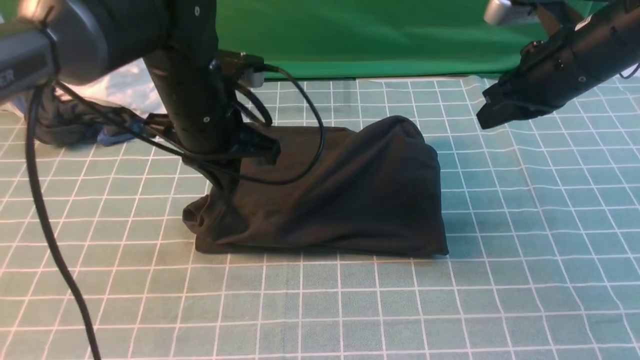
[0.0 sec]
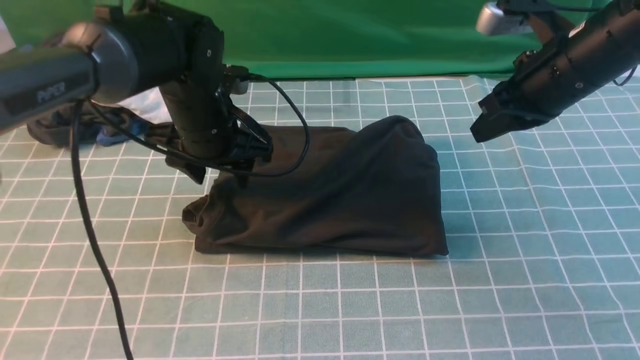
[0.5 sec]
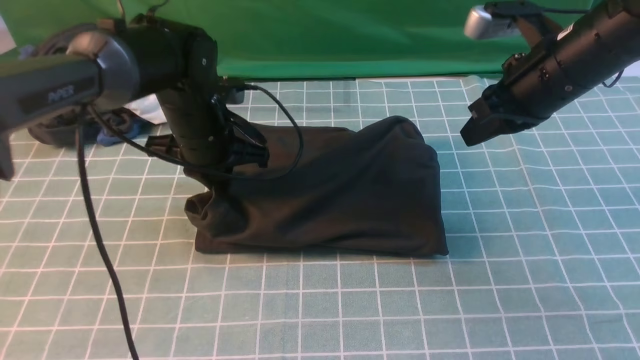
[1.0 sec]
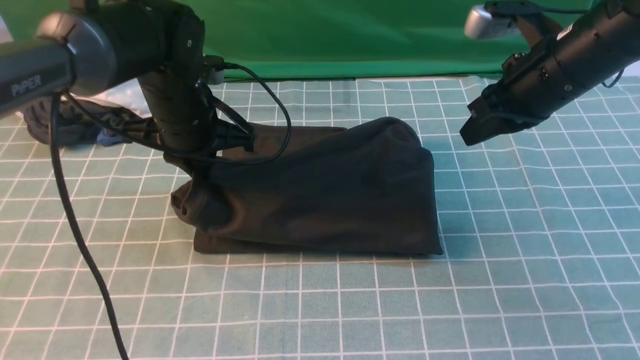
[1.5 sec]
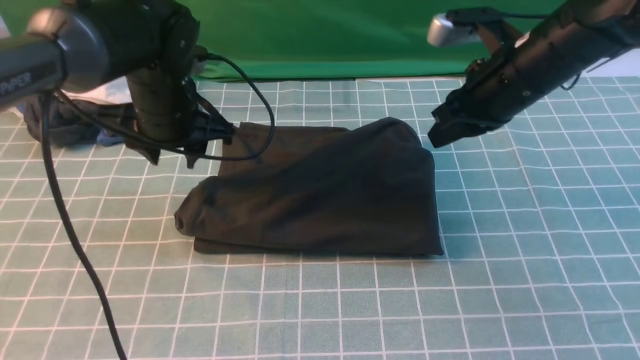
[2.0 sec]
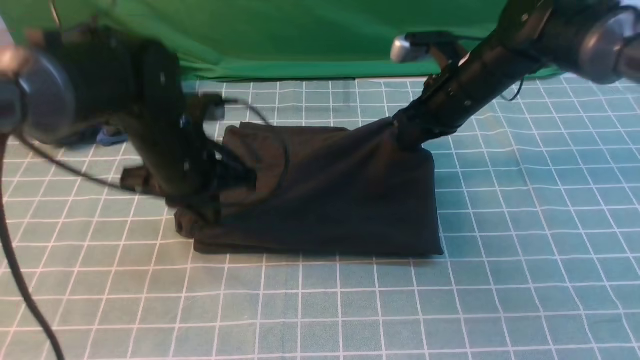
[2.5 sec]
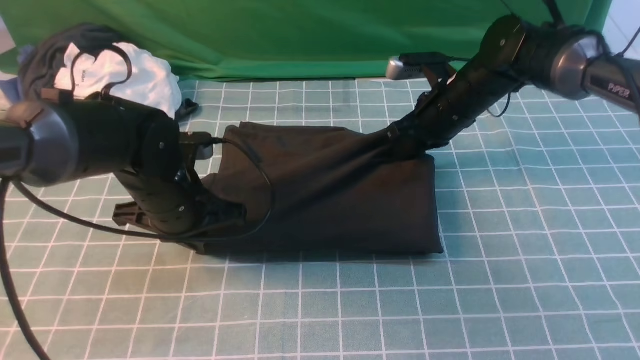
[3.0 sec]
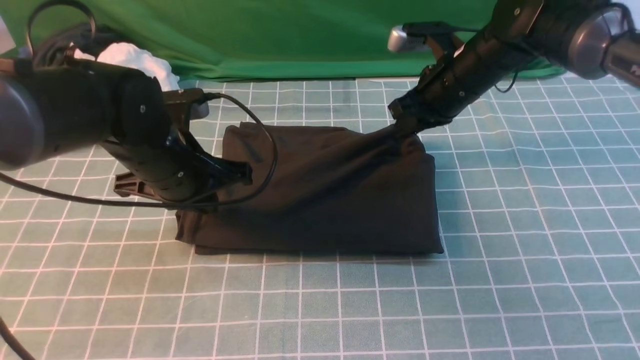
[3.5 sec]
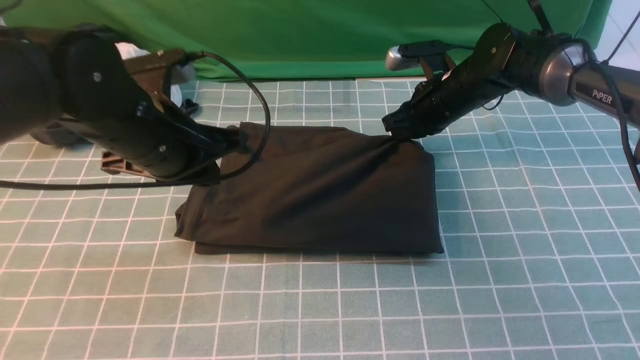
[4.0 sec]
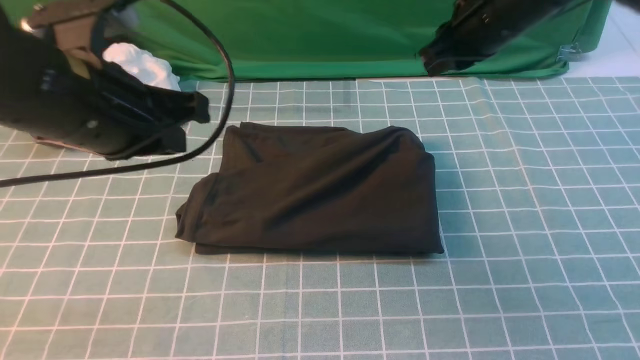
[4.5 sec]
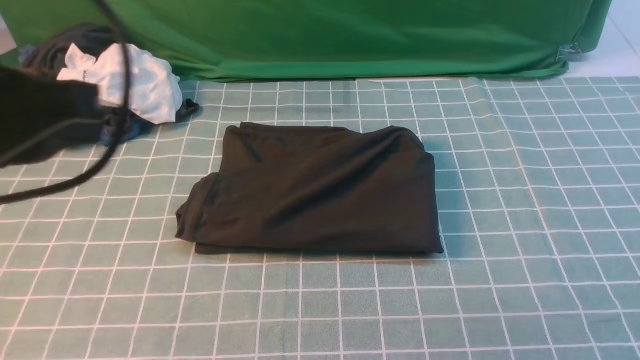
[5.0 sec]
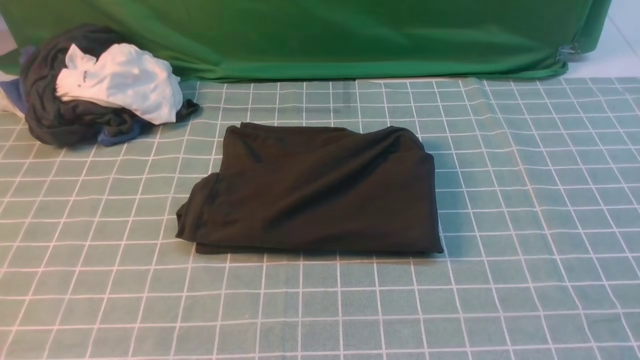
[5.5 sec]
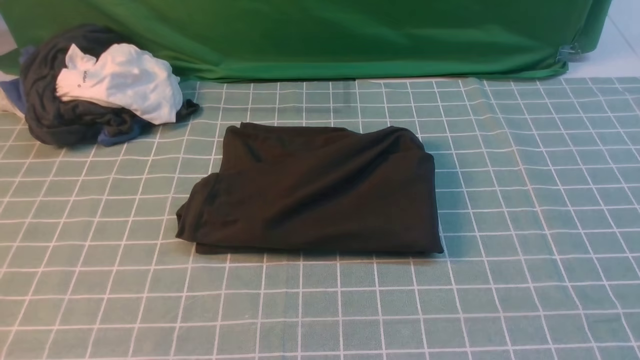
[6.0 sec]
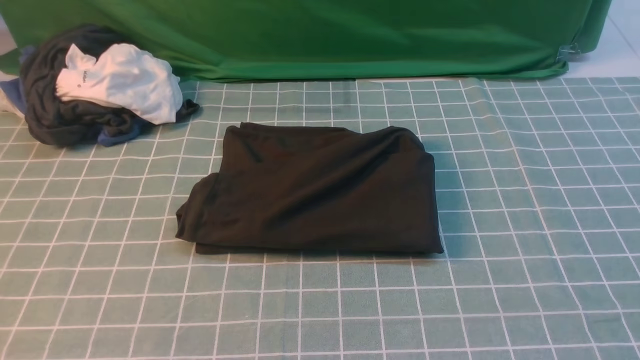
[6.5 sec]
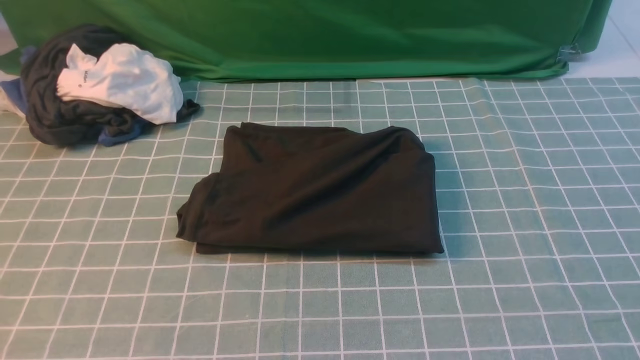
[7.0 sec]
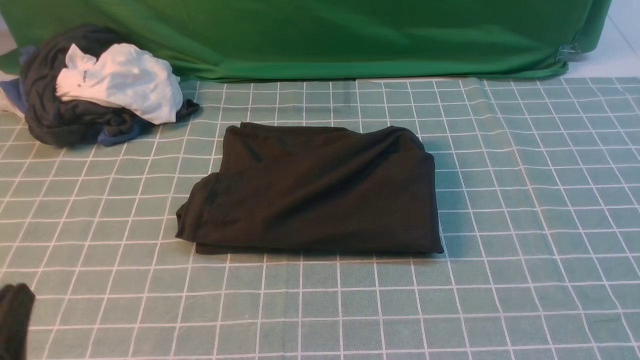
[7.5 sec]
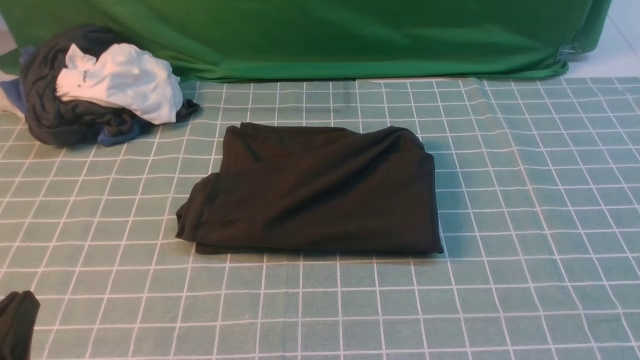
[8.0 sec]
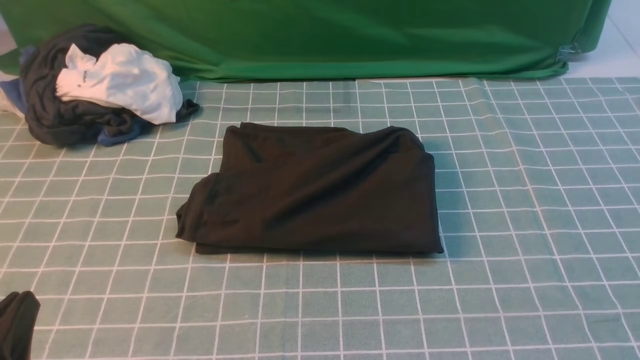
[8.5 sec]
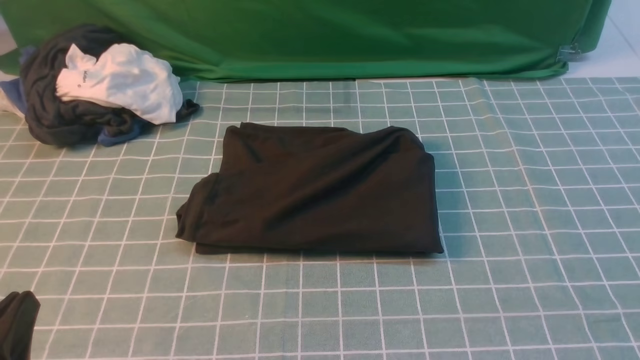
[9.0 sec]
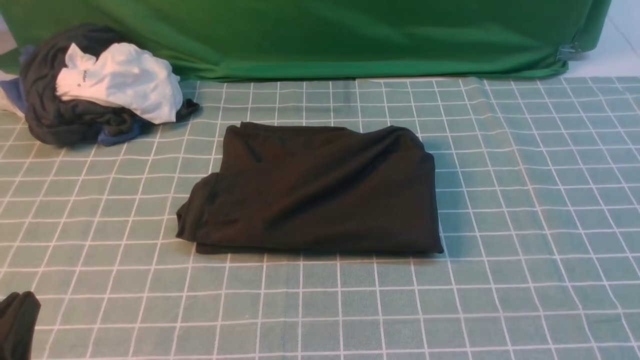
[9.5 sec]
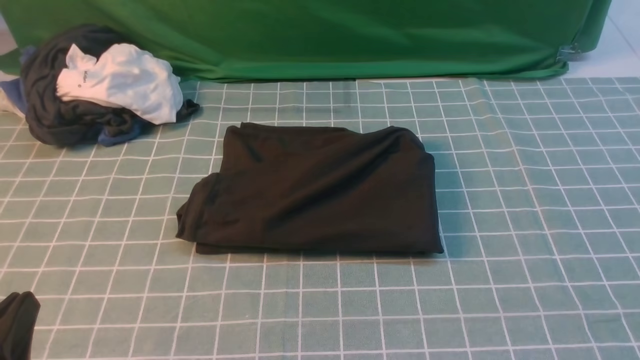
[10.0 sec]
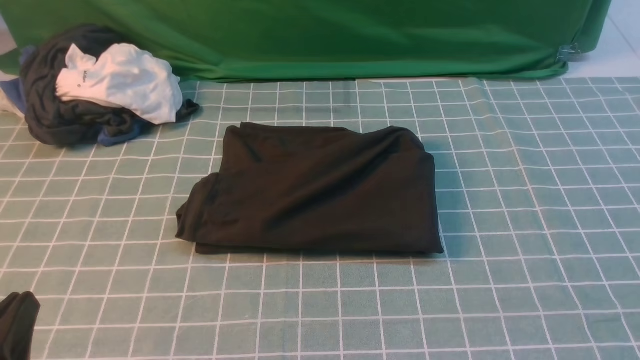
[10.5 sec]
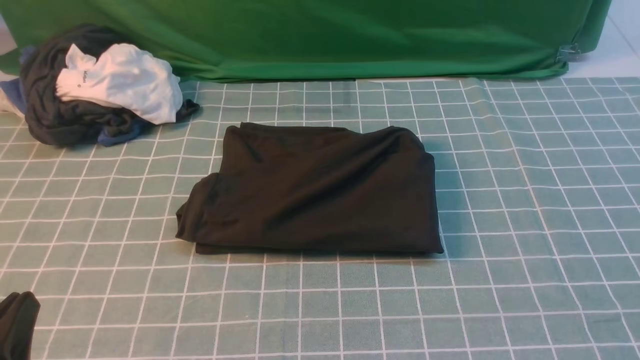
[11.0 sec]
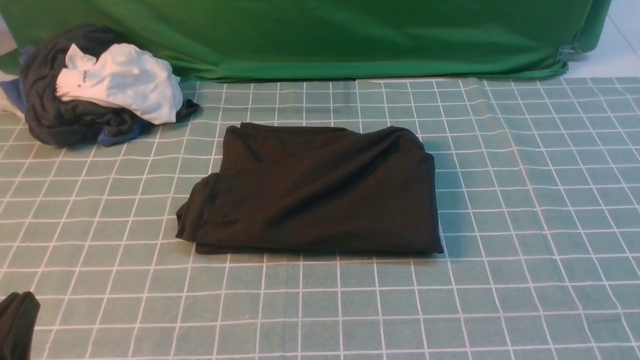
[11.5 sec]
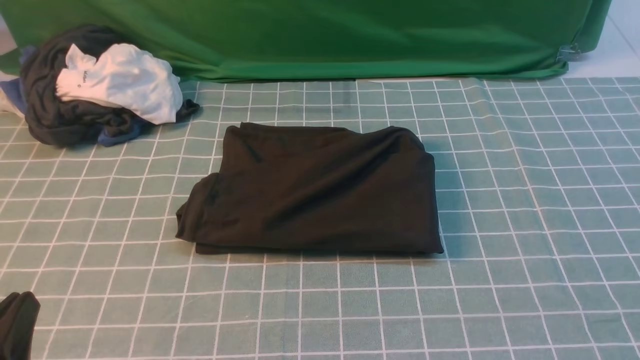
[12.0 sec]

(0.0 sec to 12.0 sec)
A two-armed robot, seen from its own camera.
0.0 sec - 2.0 sec: The left gripper opens; the right gripper goes approximately 5 cm to the left.
2.0 sec - 4.0 sec: The left gripper shifts approximately 10 cm backward, reaches approximately 5 cm downward, then returns, and closes; the right gripper goes some 15 cm forward and downward.
4.0 sec - 6.0 sec: The left gripper is displaced backward by approximately 25 cm, while the right gripper goes roughly 50 cm backward and upward.
6.0 sec - 8.0 sec: The left gripper is displaced downward by roughly 15 cm.
10.0 sec - 12.0 sec: Both grippers stay put.

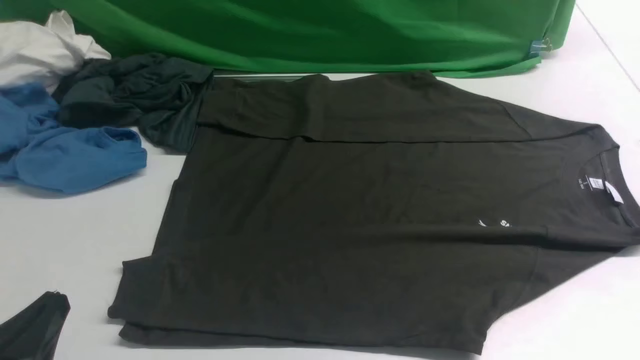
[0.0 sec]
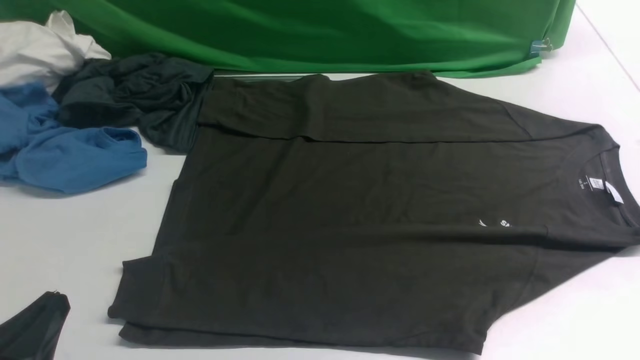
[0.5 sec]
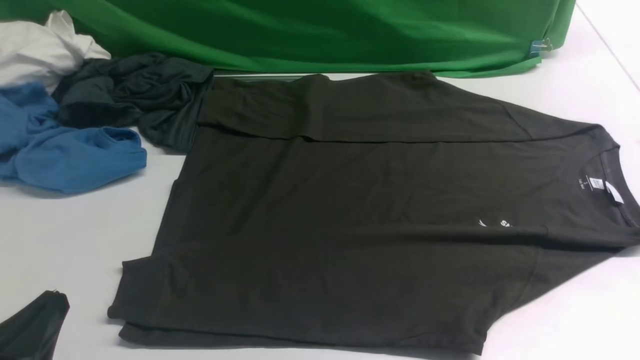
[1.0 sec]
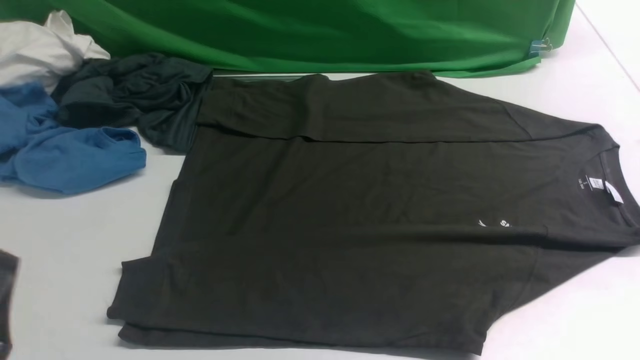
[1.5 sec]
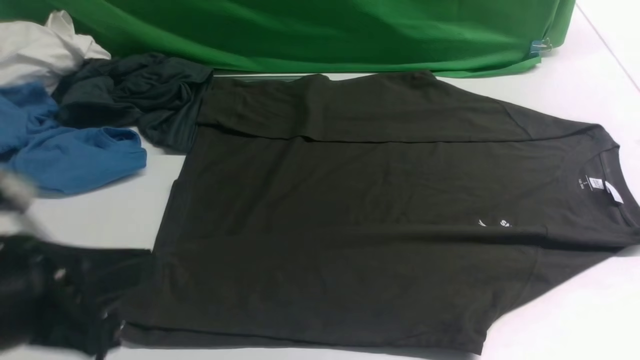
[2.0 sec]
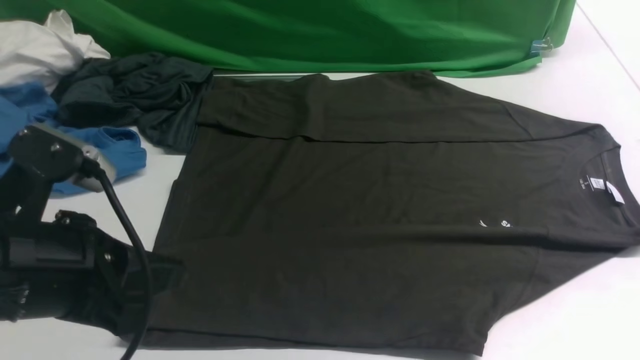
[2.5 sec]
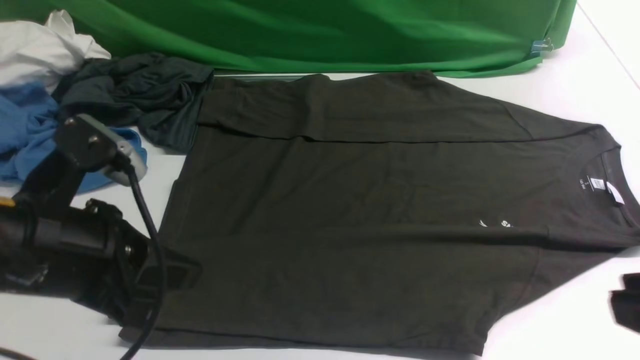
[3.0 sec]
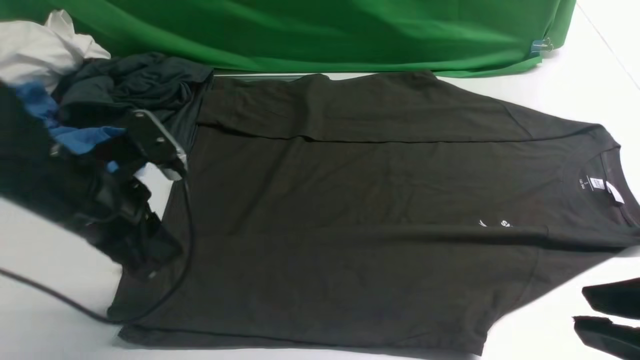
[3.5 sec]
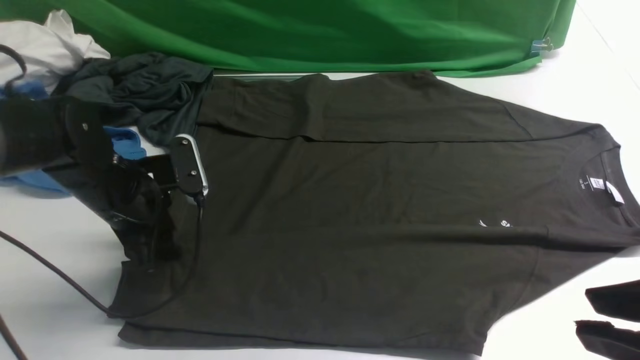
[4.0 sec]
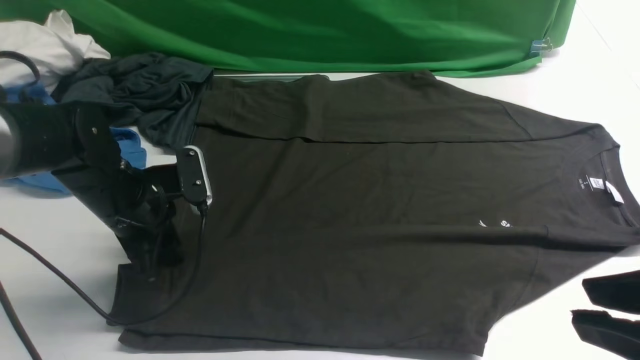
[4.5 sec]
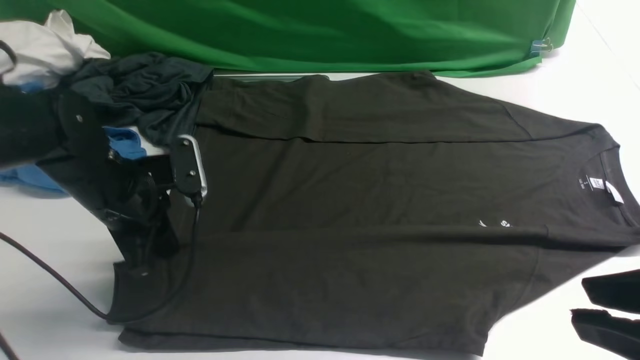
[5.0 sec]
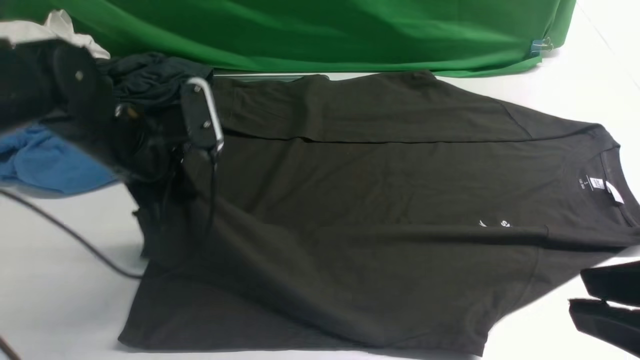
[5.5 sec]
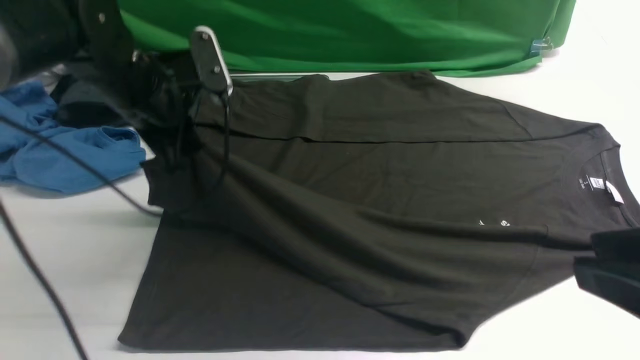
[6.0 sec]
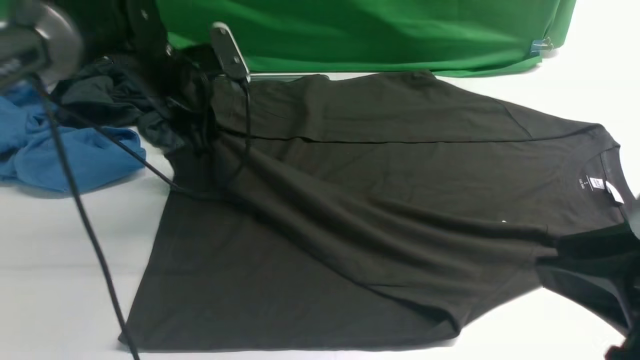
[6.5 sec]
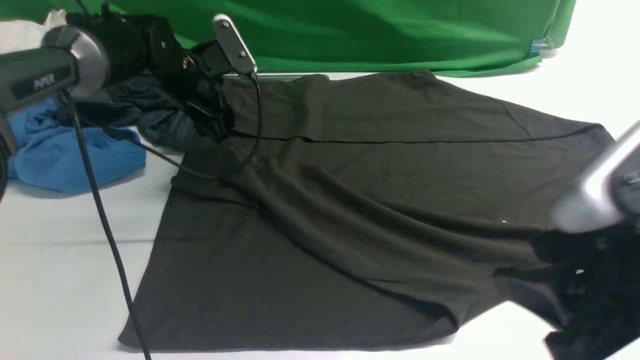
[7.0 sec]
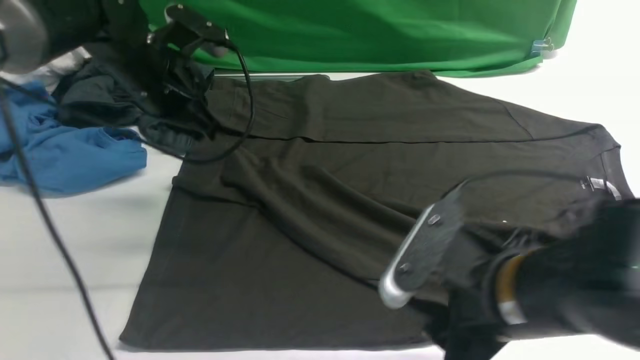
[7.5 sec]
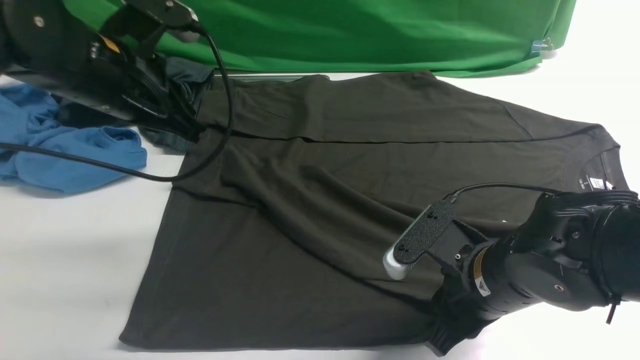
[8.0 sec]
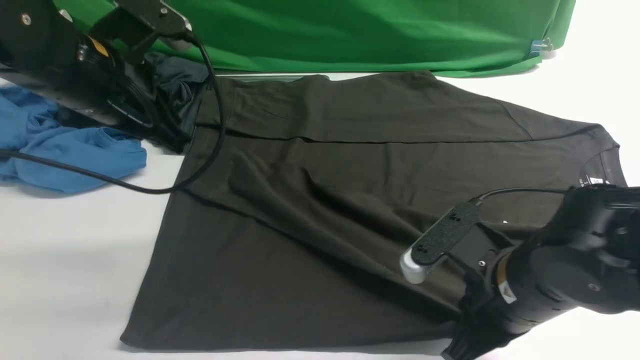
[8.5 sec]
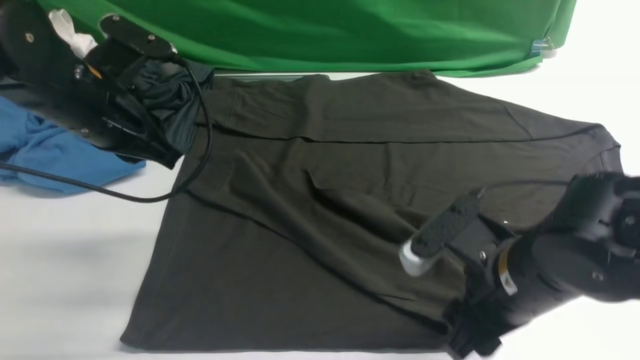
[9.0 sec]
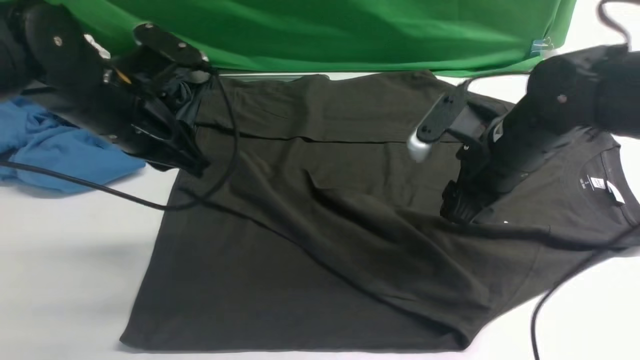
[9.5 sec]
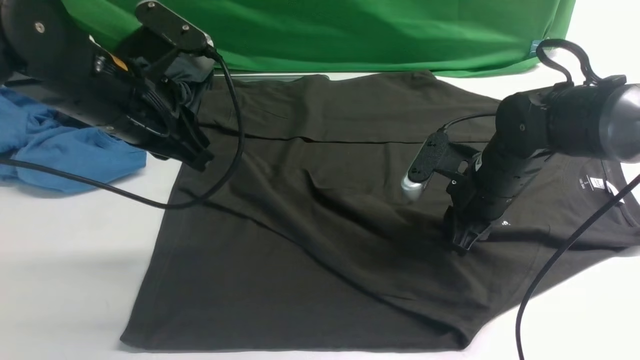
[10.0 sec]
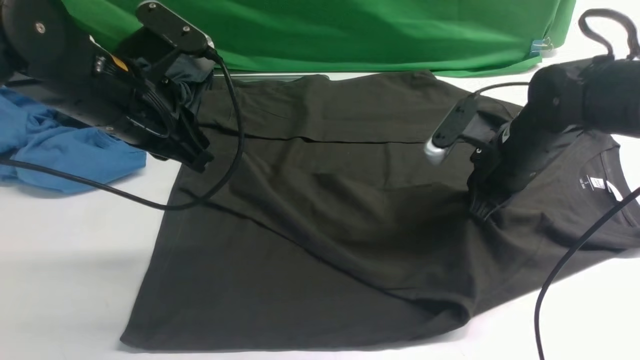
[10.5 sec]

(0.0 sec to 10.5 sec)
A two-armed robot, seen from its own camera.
Step, 0.0 sec - 4.5 sec: use the left arm to clamp the cuff closest to it.
Step, 5.0 sec - 7.0 sec: use the left arm to drag and place the cuff at the centered position on the left edge of the fabric.
0.0 sec - 2.0 sec: The left gripper heads upward and forward, covering roughly 10 cm.
2.0 sec - 4.0 sec: The left gripper is displaced forward and downward by some 25 cm, and opens up. The right gripper is displaced upward and to the left by about 15 cm.
4.0 sec - 6.5 sec: The left gripper shifts approximately 15 cm forward and upward, and closes up.
6.5 sec - 8.5 sec: The left gripper moves backward and upward, roughly 15 cm, and opens and closes again; the right gripper travels downward, forward and to the left by some 20 cm, and opens and closes again.
8.5 sec - 10.5 sec: The right gripper moves forward, some 15 cm, and opens and closes again.
